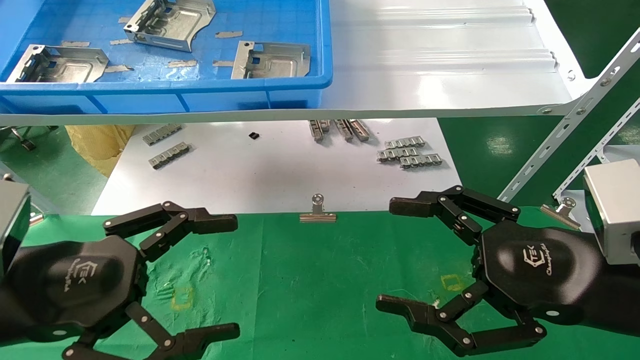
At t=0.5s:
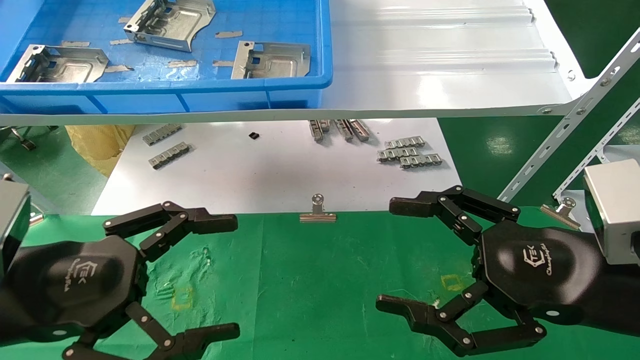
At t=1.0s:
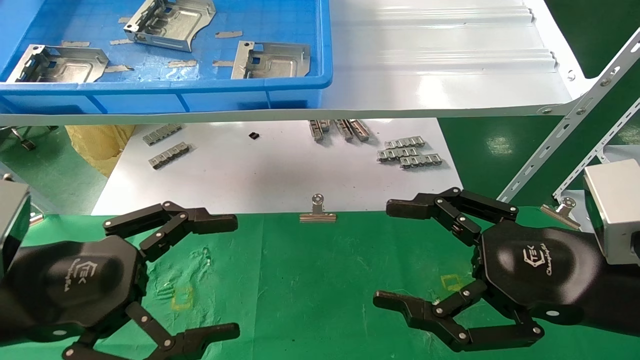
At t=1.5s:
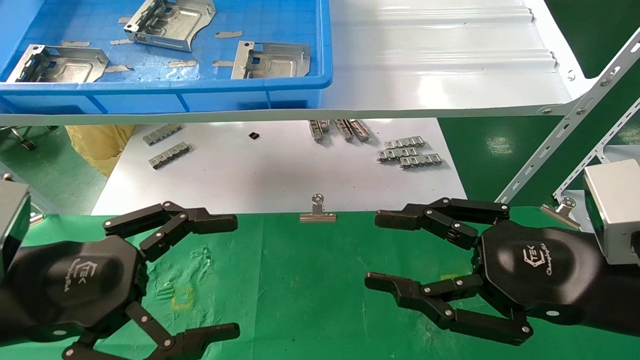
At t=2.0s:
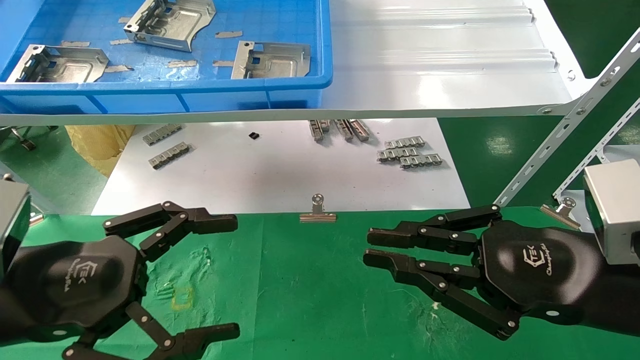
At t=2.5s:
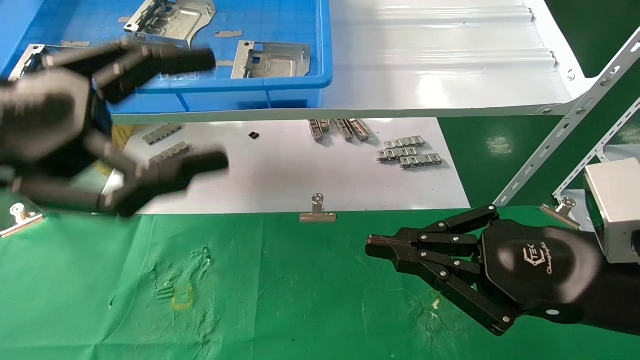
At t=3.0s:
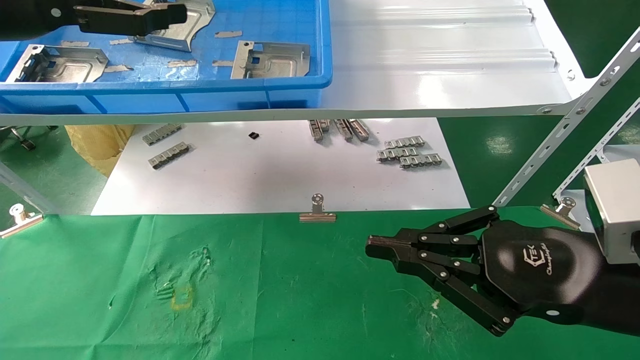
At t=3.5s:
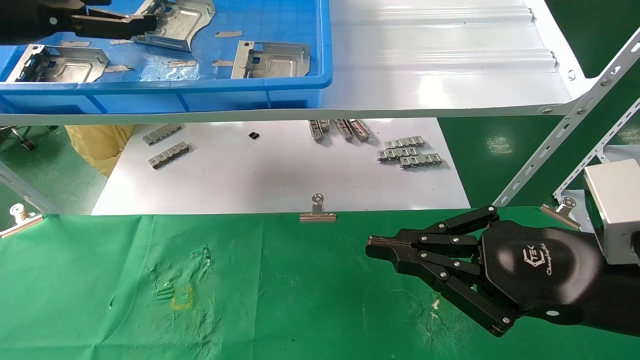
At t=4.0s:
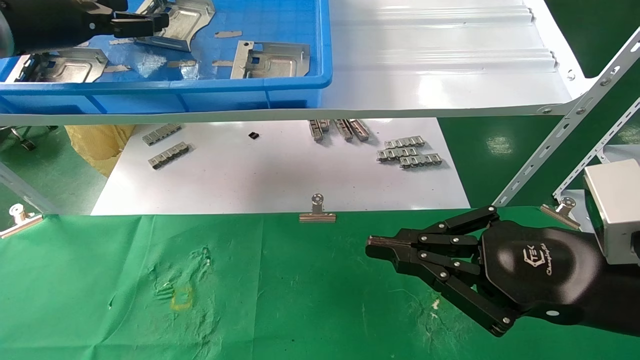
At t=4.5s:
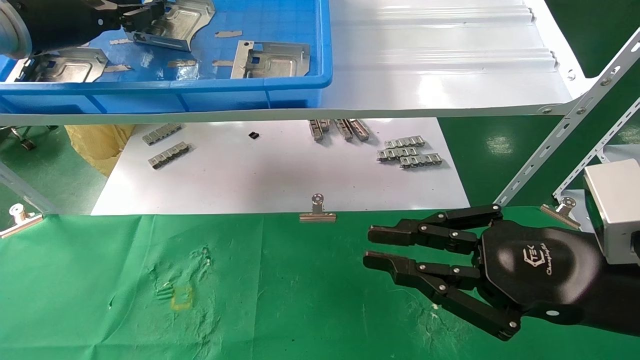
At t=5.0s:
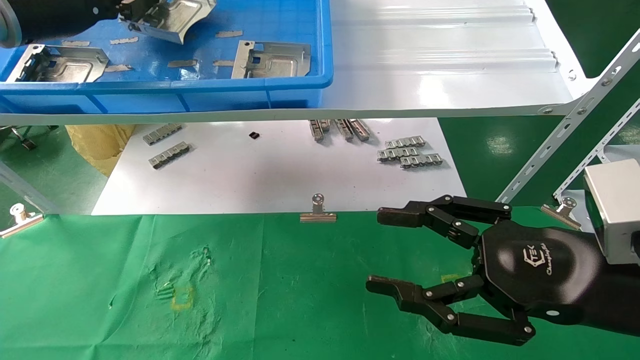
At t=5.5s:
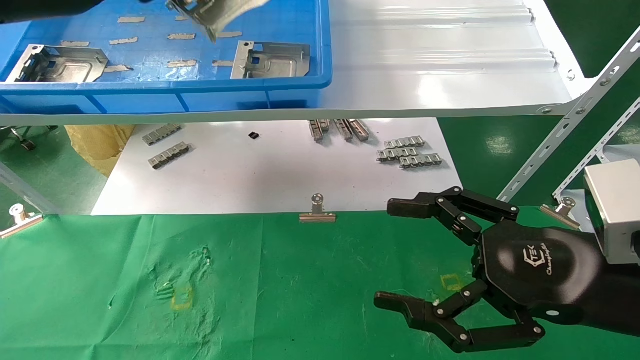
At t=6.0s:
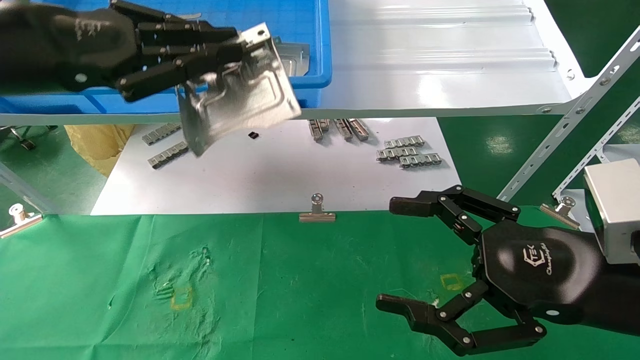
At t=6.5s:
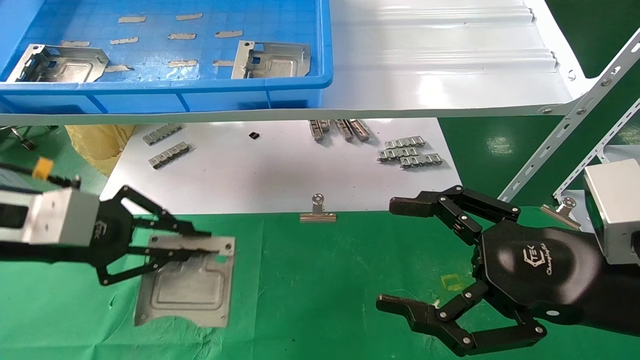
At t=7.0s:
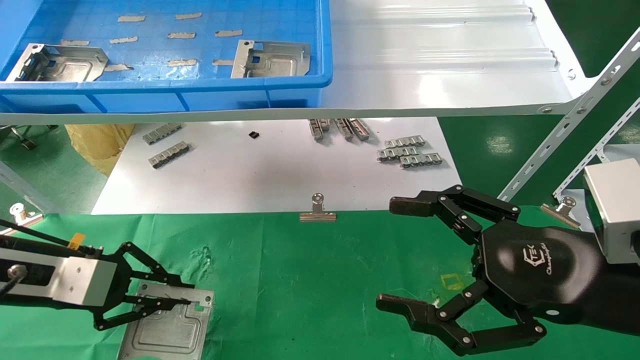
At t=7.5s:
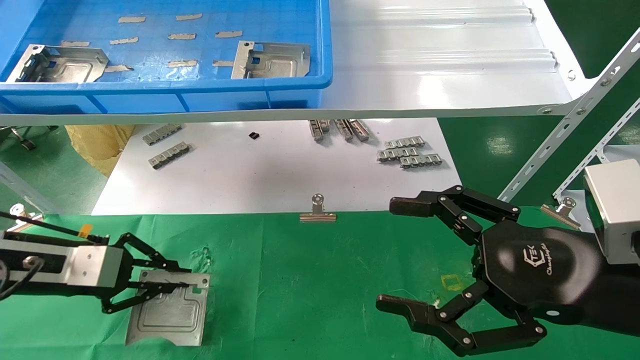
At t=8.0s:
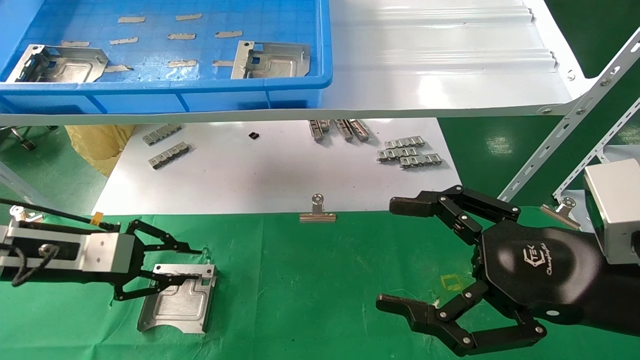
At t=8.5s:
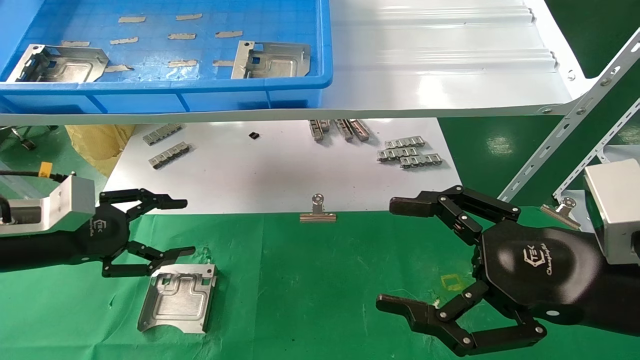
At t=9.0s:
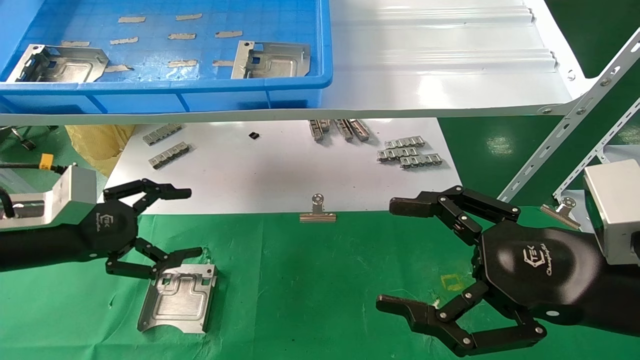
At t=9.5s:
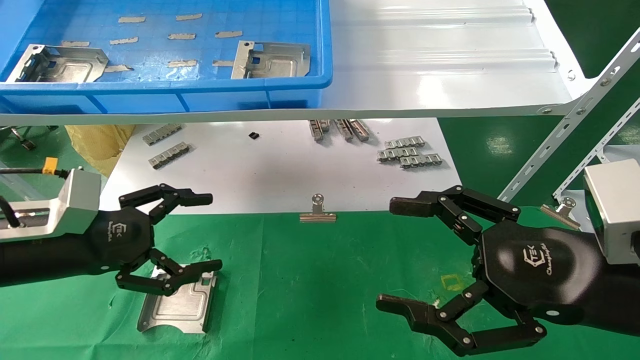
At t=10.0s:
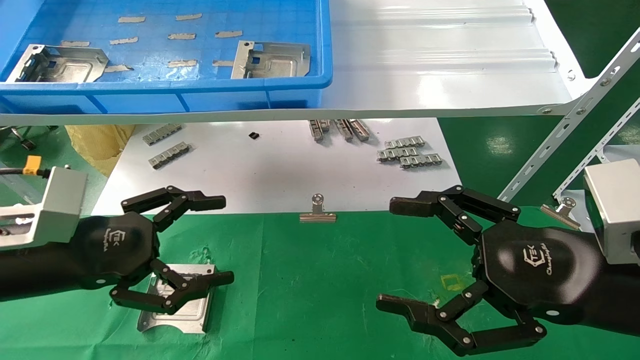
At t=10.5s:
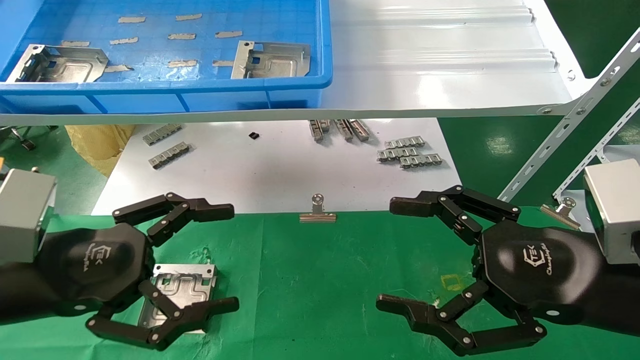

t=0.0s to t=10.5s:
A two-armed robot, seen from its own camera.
Task of the whole recording: use the mechanical arm to pick up the parts and place them on the table.
Step, t=2.5s to t=5.0s: Pick up the hard drive bracket from the feeding area.
Step, t=5.5s to t=7.5s: Place the hard drive bracket into the box.
t=0.0s to t=2.0s: The right gripper closes its fingers.
t=2.0s to t=4.0s: The left gripper goes some 30 cm forward and upward.
t=4.0s to t=6.5s: The right gripper opens its fingers; the left gripper heads downward and backward, covering some 20 cm, and closes its fingers.
t=6.5s to t=8.5s: The left gripper shifts some 5 cm downward, and opens its fingers.
t=8.5s to t=10.5s: The left gripper heads backward and to the right, covering approximately 15 cm, and opens up.

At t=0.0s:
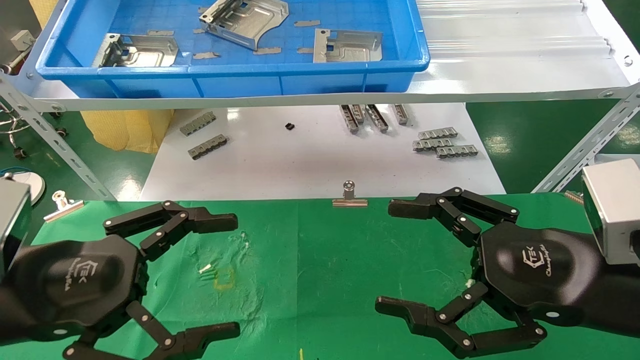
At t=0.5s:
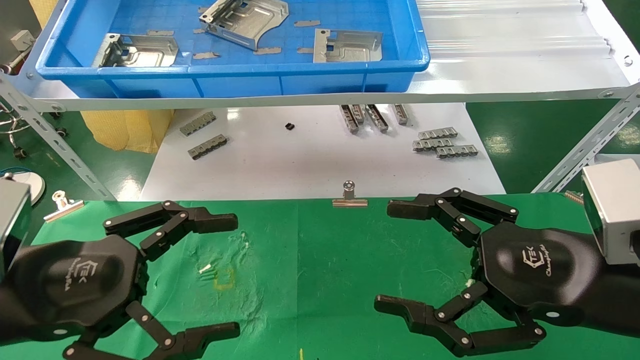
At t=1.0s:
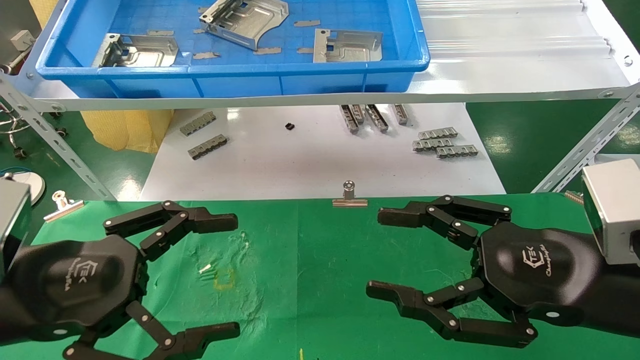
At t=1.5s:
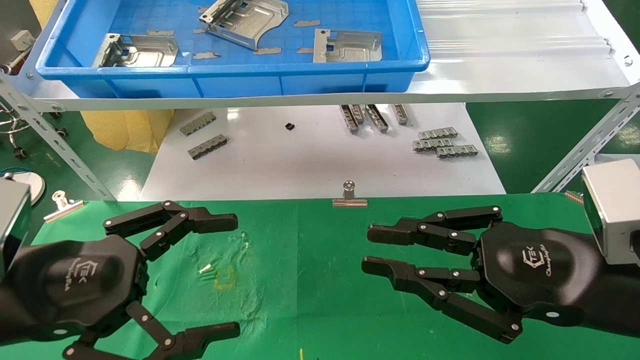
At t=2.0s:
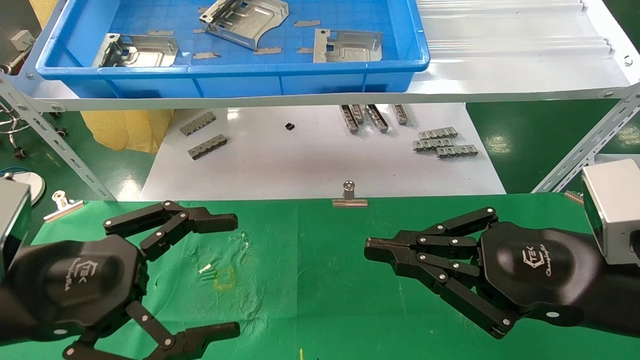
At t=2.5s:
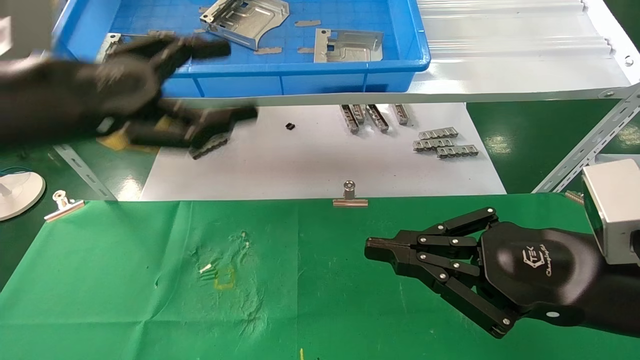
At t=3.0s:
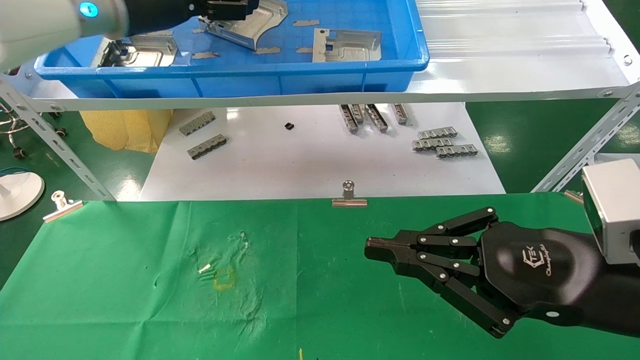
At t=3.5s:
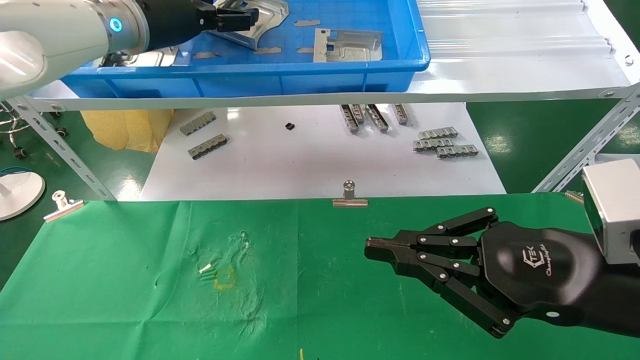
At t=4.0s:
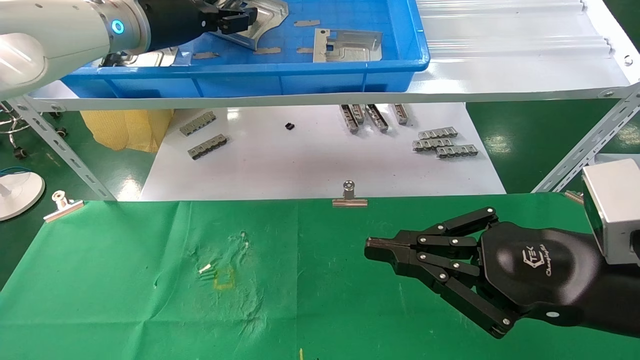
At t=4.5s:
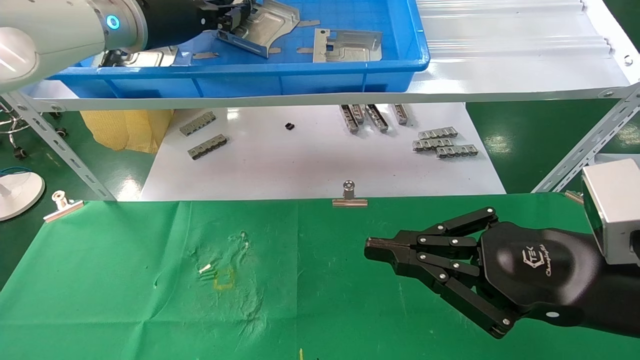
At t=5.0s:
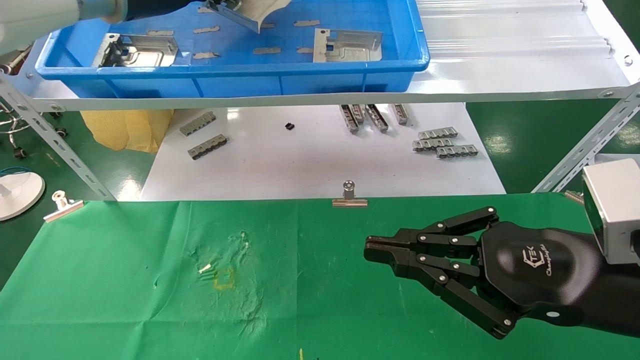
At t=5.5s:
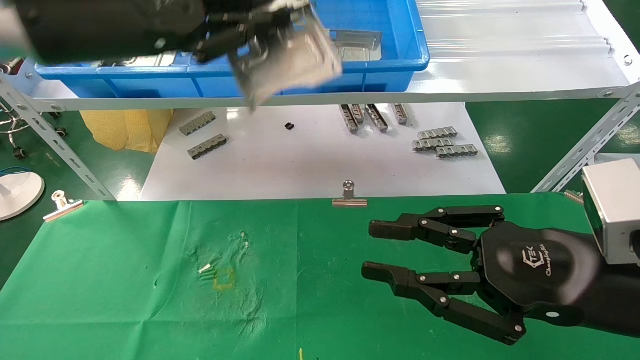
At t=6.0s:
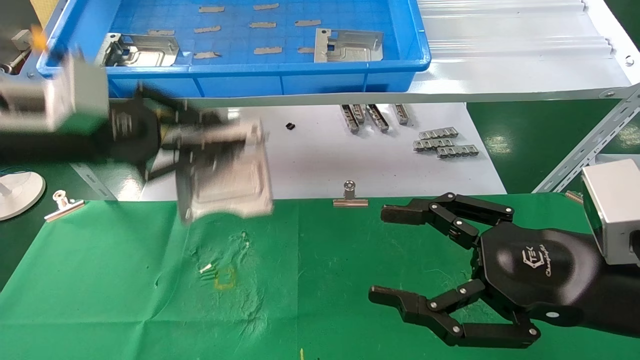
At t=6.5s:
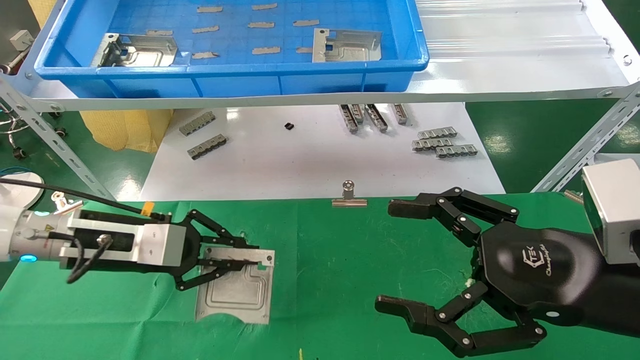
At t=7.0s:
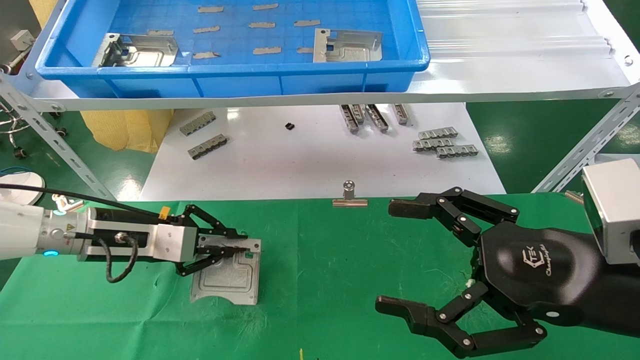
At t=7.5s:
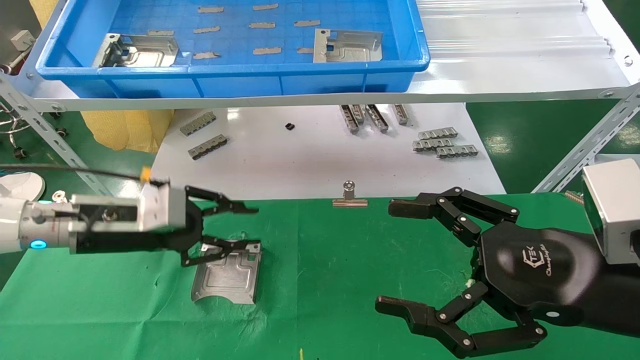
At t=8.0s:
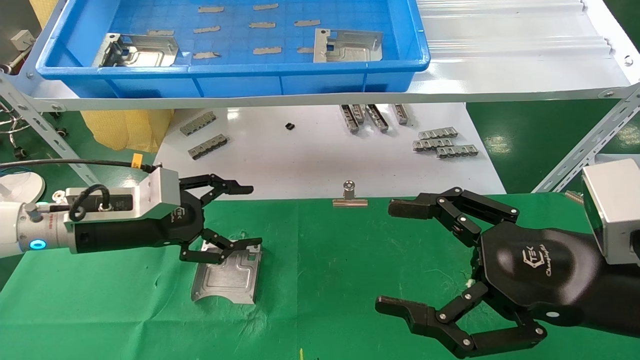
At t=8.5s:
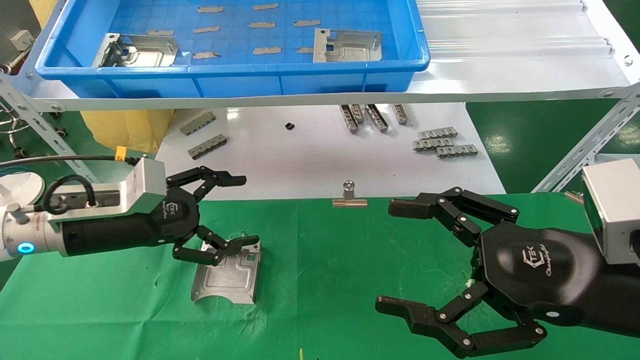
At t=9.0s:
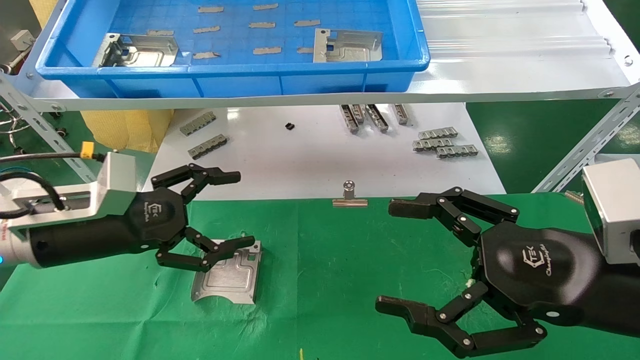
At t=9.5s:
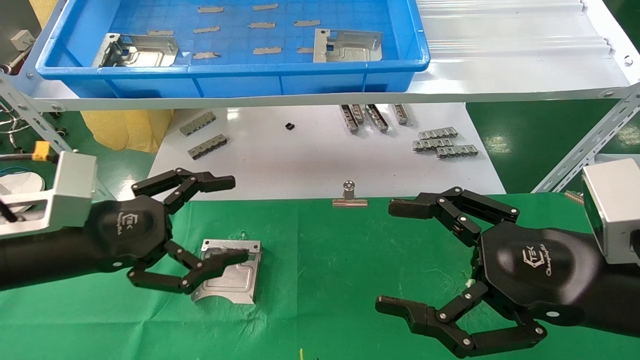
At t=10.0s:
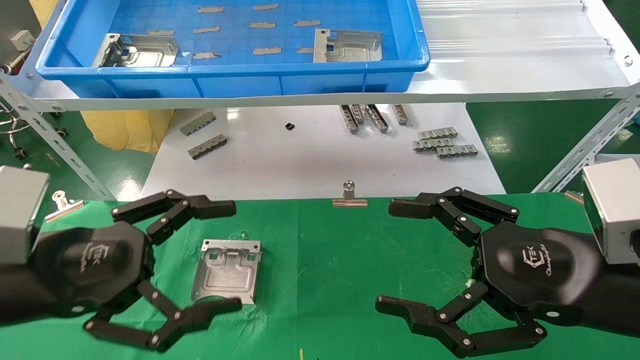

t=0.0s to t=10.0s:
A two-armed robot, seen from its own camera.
Task of the whole recording: use the mechanical arm to pick up the parts and place them on the table.
Step, t=2.5s to t=4.5s: Pick up the hard drive bracket from the feeding area.
Step, t=5.0s to t=7.5s: Place the hard drive bracket into the box.
t=0.0s to t=2.0s: The right gripper closes.
t=2.0s to t=4.0s: The left gripper shifts some 30 cm forward and upward.
t=4.0s to t=6.0s: The left gripper is displaced backward, downward and to the left by roughly 20 cm, and closes its fingers. The right gripper opens its fingers.
t=6.0s to t=8.0s: The right gripper opens its fingers, while the left gripper shifts roughly 10 cm downward, and opens its fingers.
t=8.0s to t=10.0s: The left gripper is displaced backward by some 15 cm, and opens up.
